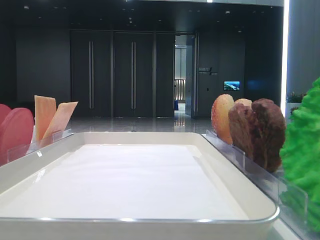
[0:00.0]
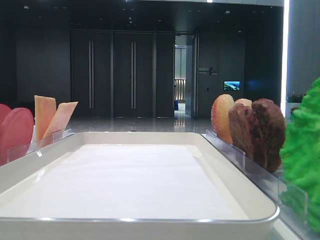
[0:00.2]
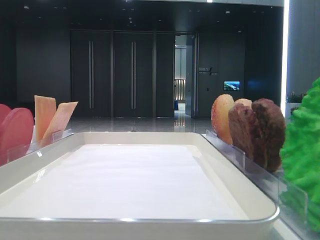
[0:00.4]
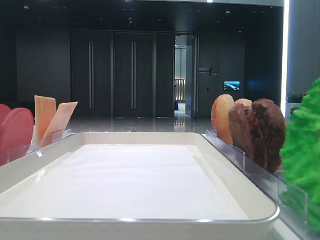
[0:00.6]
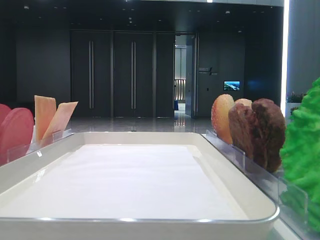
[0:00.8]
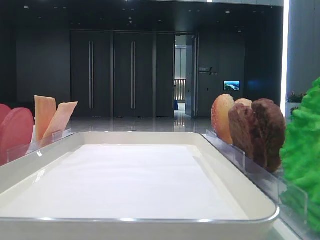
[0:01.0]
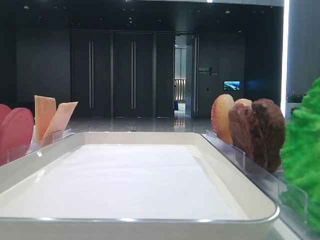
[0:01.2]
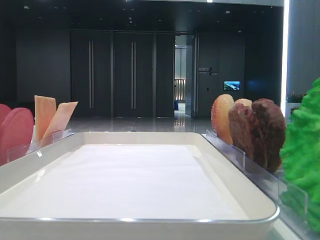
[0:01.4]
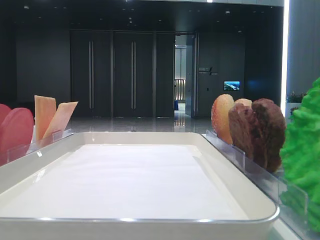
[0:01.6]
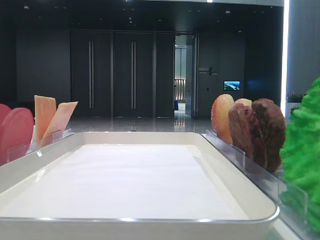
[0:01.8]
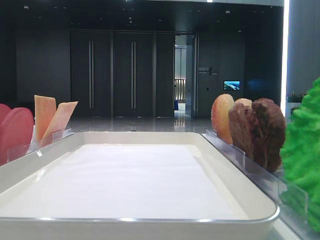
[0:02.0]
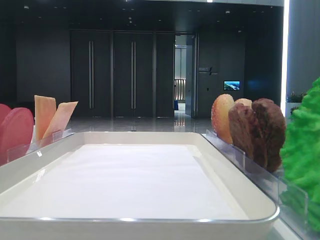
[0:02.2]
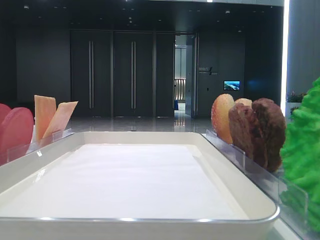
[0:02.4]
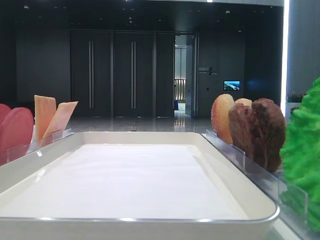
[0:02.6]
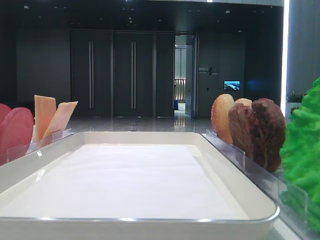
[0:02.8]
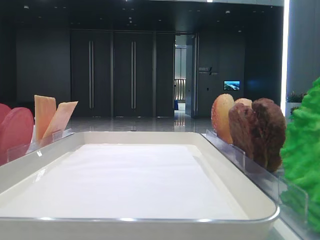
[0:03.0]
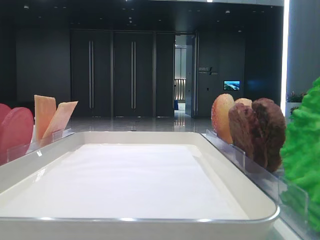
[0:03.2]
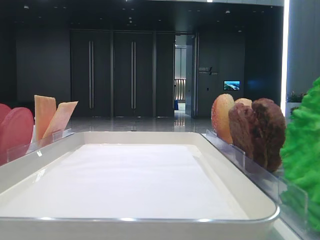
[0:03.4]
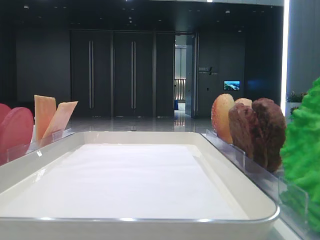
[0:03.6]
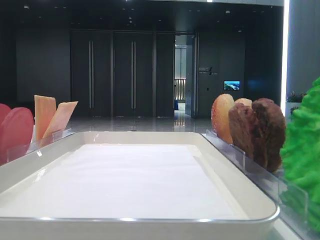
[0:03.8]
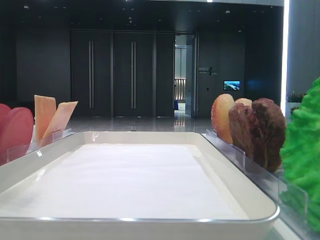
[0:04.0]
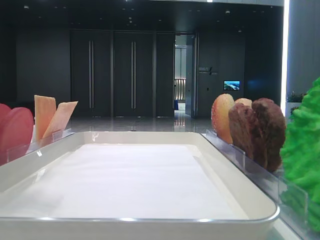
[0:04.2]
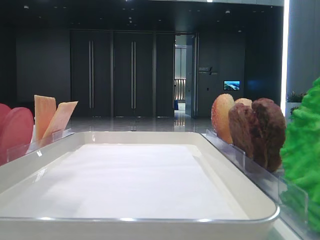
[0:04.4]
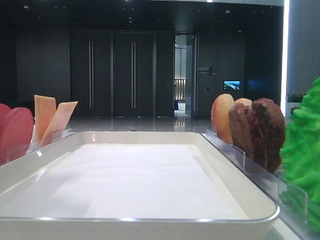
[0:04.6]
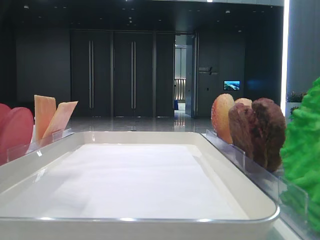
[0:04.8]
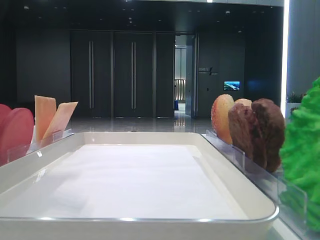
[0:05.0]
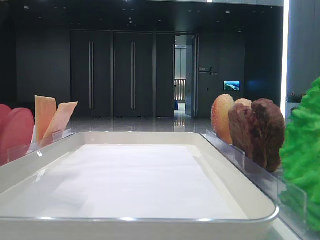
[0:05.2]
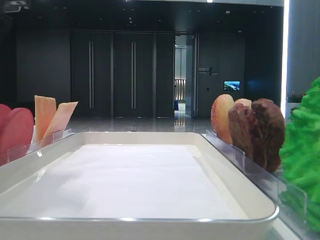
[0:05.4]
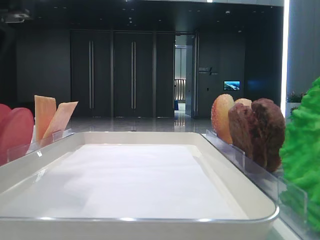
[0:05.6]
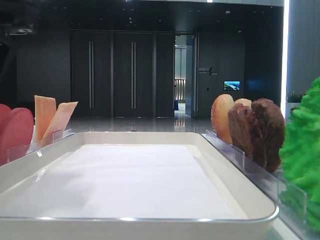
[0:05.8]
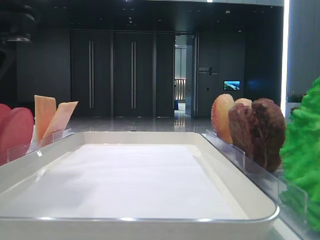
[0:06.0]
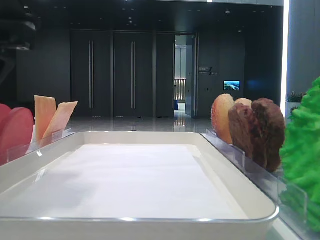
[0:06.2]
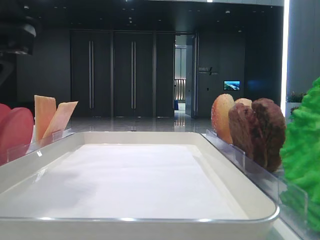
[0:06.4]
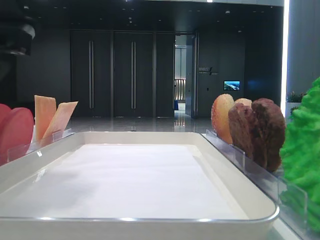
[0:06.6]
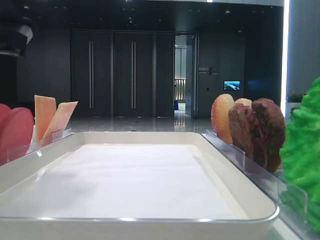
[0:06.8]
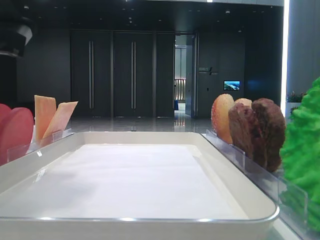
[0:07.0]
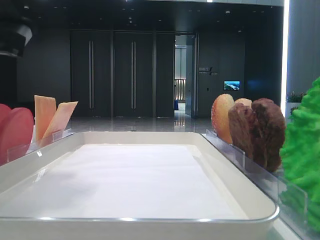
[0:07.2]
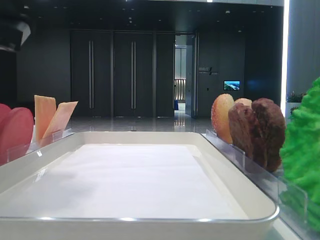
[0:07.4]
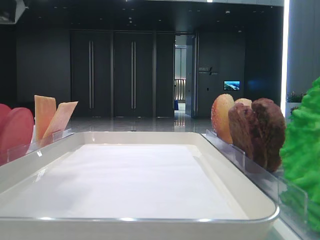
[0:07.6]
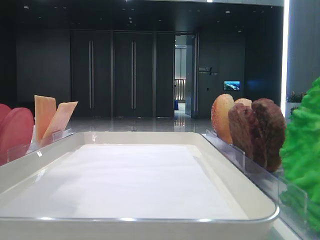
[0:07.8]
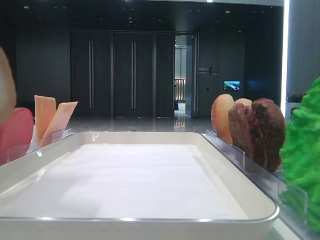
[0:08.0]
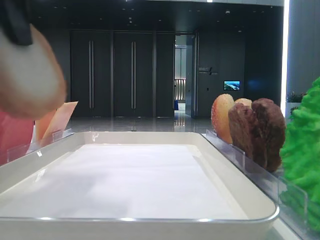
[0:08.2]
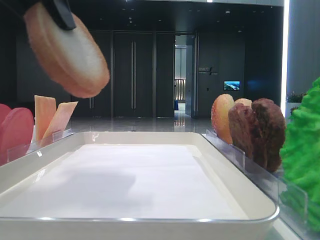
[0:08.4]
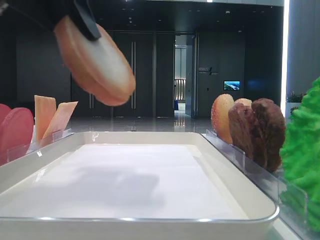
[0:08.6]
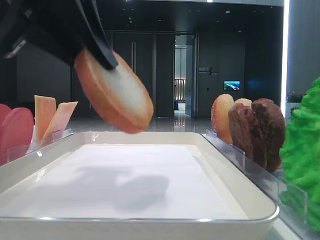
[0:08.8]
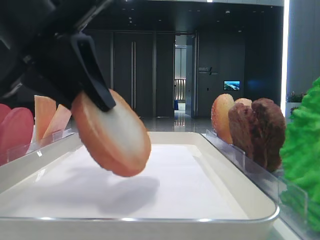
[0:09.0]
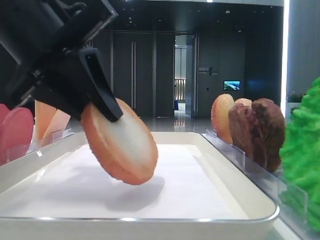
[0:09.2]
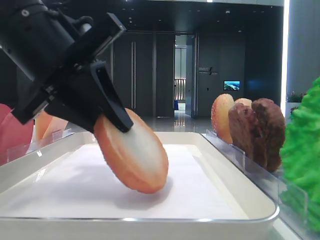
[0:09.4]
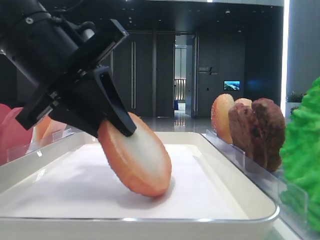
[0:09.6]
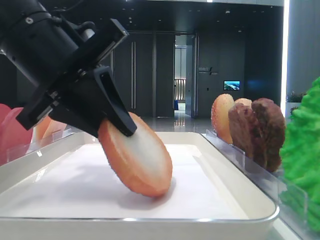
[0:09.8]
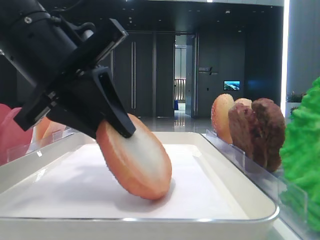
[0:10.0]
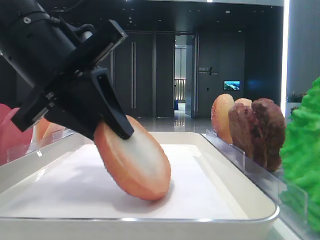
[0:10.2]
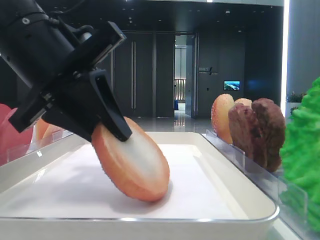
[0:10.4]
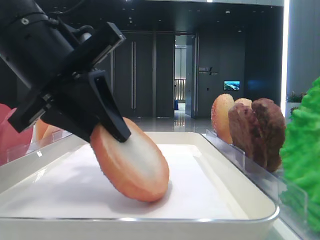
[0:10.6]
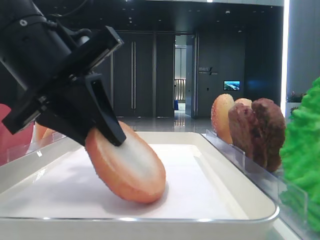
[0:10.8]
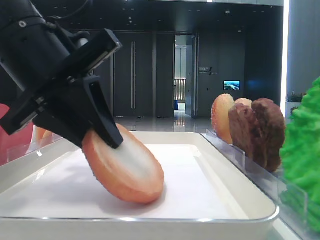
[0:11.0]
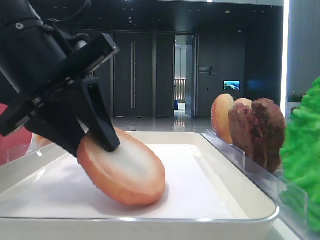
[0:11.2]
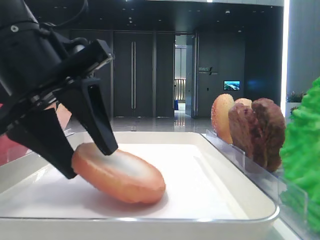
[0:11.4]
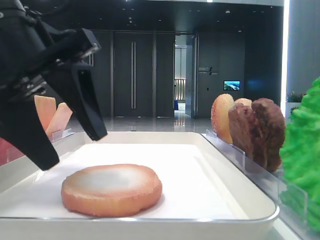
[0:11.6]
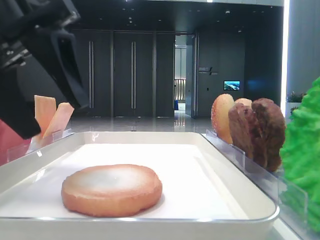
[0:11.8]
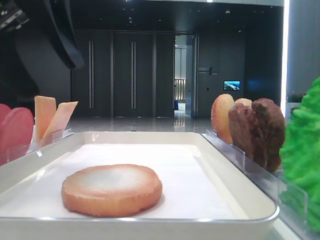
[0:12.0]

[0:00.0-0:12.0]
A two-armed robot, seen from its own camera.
Step, 0:07.2 to 0:11.4: Place the bread on the tray with the left hand.
0:03.0 to 0:04.4: The left gripper is displaced to the right by about 10 cm.
0:04.4 to 0:06.0: The left gripper moves downward, roughly 5 cm.
0:07.6 to 0:09.0: The left gripper ends up some 5 cm from where it was.
0:09.0 to 0:10.4: The grippers make only small movements.
0:10.4 to 0:12.0: The left gripper is displaced upward by approximately 10 cm, and opens up.

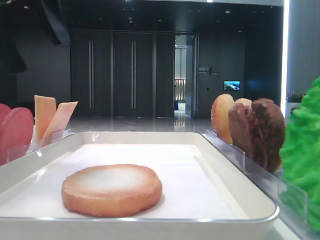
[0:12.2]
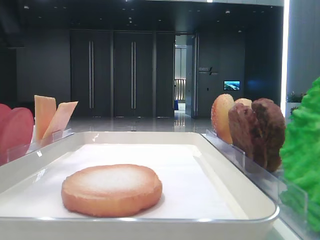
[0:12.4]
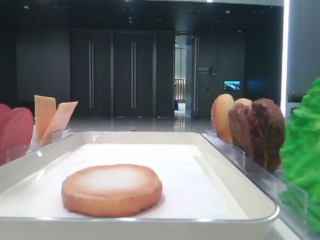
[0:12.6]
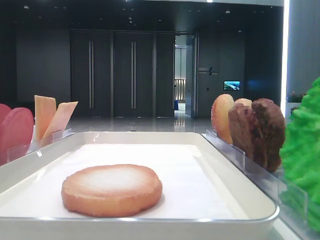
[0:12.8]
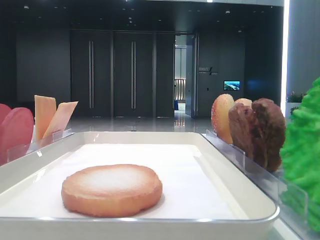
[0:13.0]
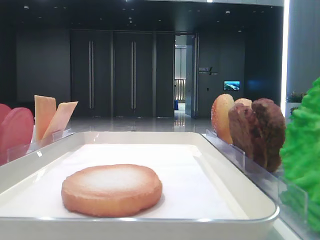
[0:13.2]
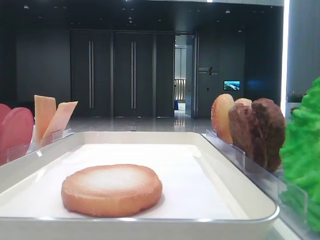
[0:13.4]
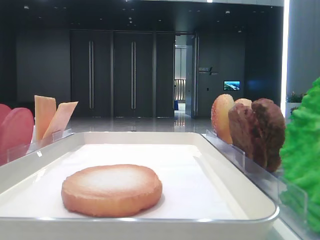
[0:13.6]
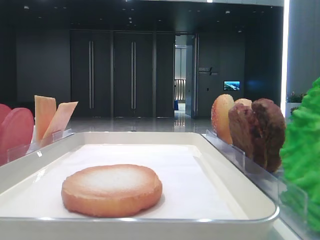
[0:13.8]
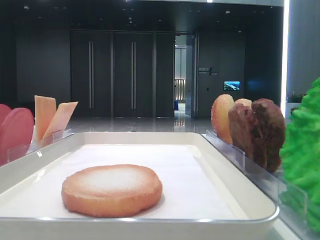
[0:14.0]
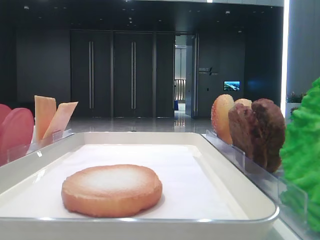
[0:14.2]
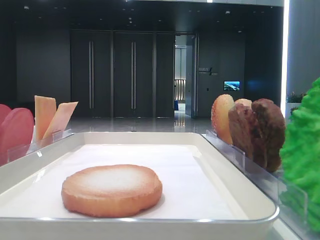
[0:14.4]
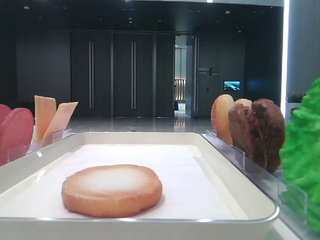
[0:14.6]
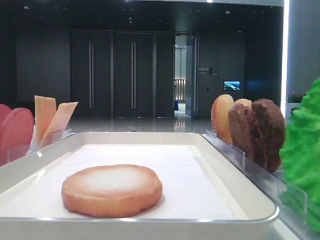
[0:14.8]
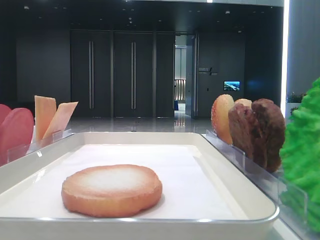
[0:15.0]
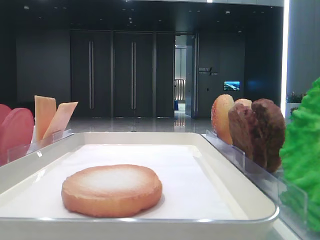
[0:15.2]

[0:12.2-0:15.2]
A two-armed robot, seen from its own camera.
0:12.2 to 0:13.8: The left gripper heads backward and to the left, covering some 20 cm.

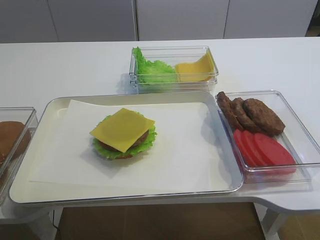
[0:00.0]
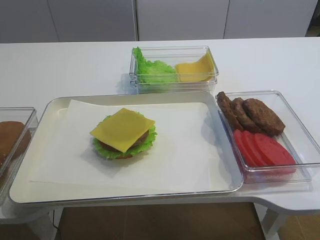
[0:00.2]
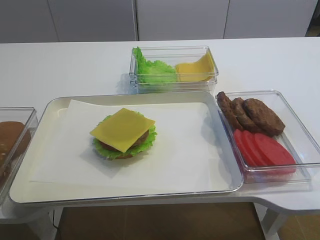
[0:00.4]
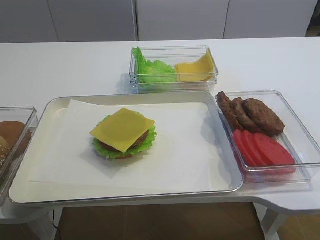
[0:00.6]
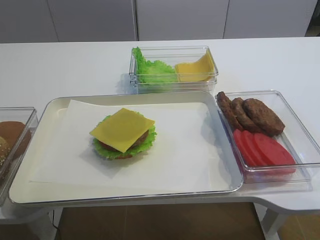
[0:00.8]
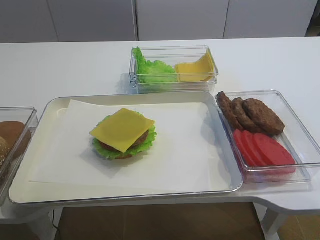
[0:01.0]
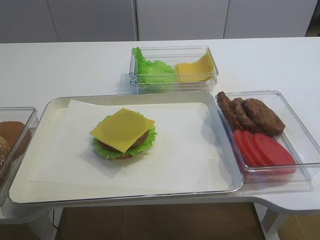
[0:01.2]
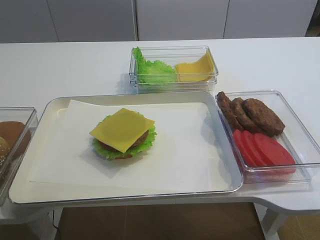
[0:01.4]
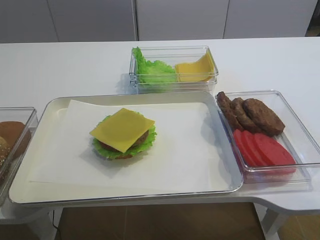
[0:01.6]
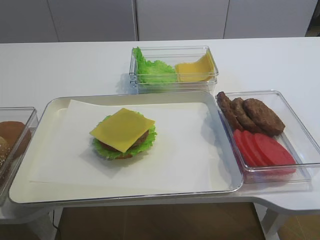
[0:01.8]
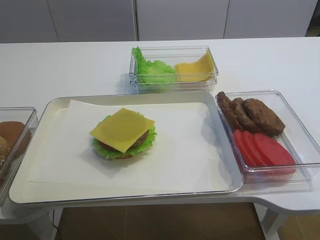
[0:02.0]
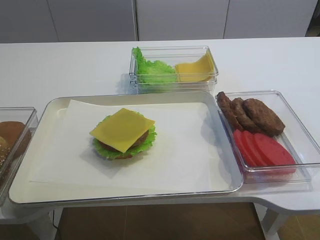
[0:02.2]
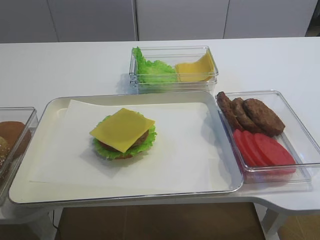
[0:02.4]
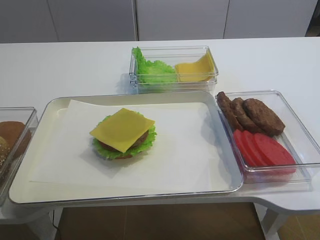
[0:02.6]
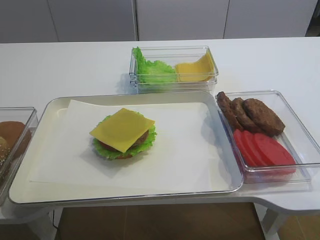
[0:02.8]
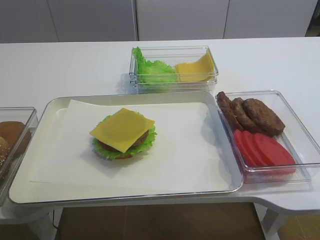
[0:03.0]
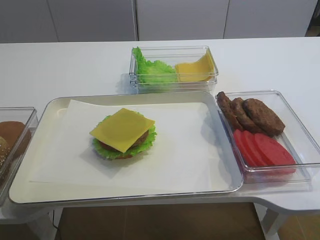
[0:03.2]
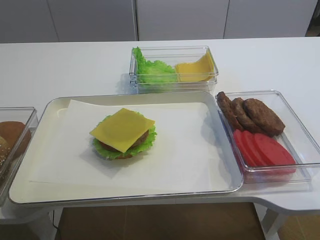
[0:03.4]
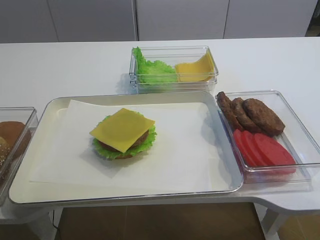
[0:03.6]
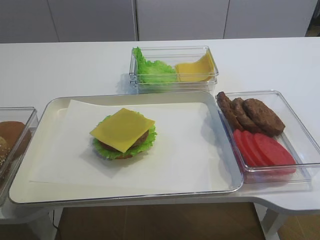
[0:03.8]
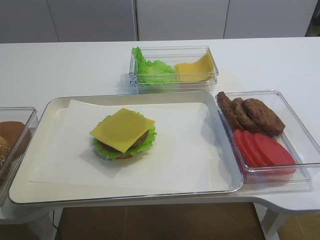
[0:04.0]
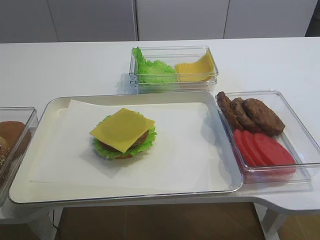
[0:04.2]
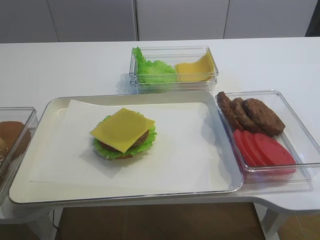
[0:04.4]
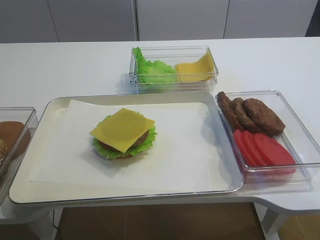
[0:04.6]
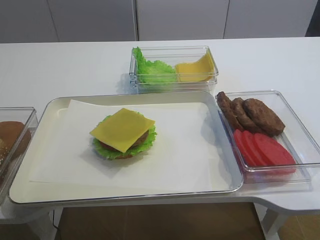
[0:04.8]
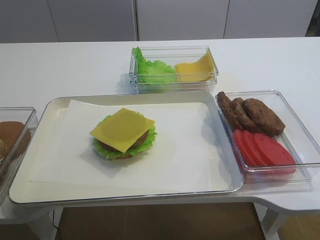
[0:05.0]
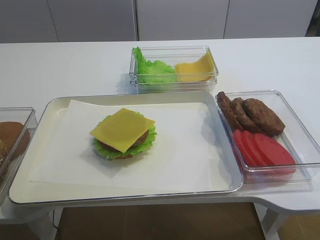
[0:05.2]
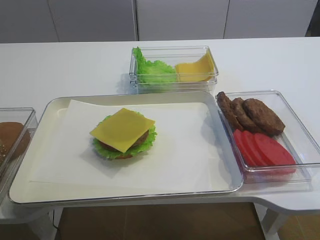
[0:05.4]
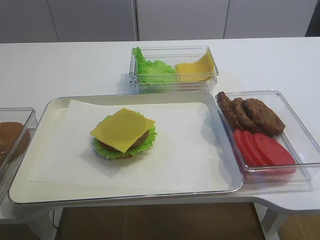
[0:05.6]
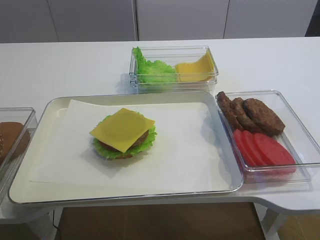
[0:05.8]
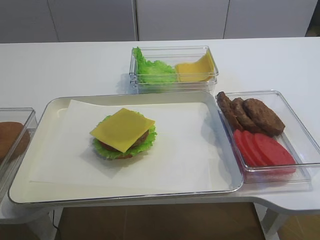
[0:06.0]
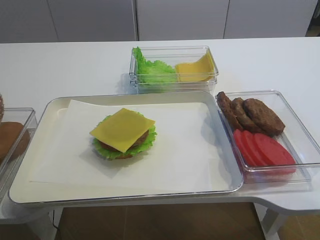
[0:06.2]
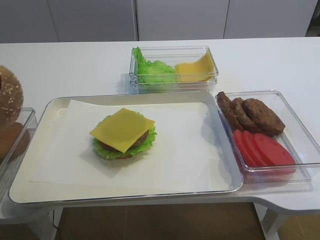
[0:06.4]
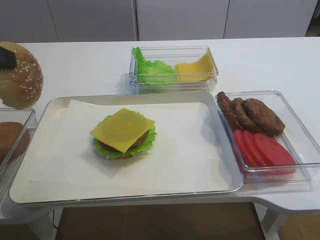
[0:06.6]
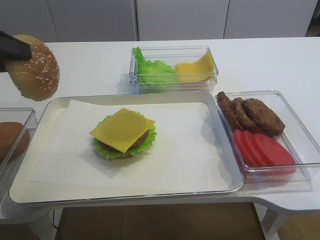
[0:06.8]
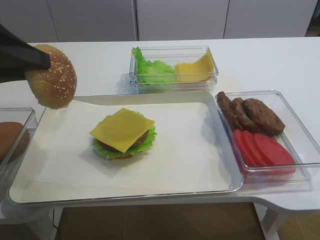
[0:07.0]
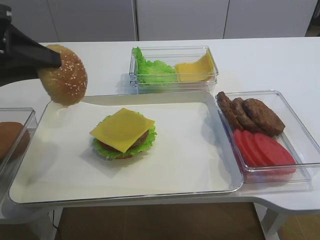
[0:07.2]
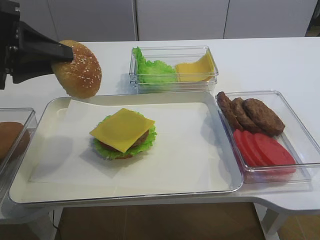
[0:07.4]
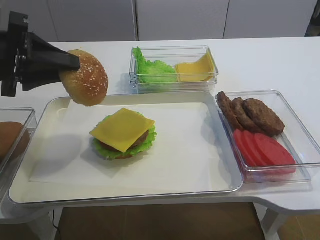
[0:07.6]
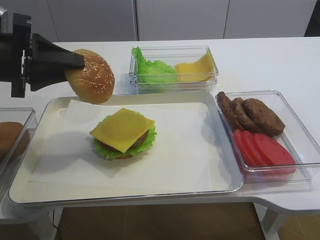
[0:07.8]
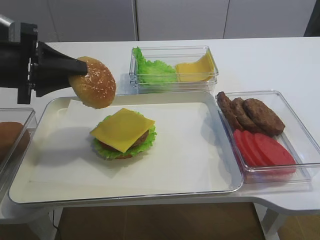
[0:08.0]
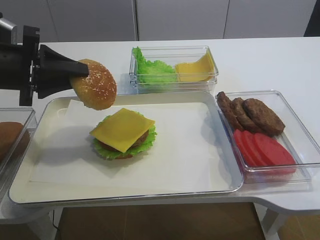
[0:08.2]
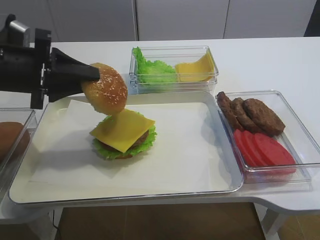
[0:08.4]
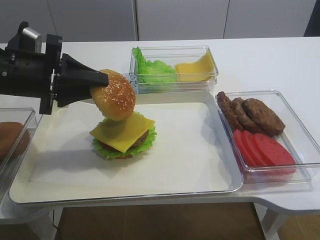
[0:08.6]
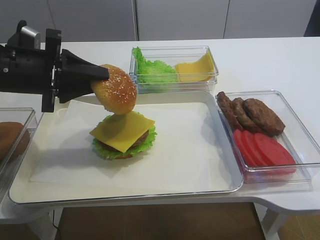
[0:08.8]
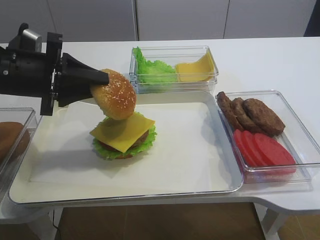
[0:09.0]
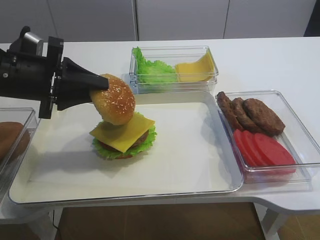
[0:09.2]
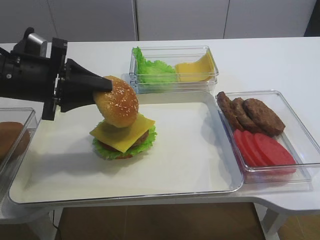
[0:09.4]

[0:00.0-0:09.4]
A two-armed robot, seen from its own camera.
0:06.2 to 0:07.8: The left gripper moves forward and to the right, some 10 cm.
0:07.8 to 0:09.4: The left gripper changes place by about 5 cm.
